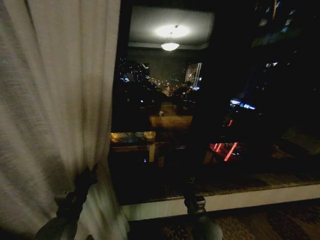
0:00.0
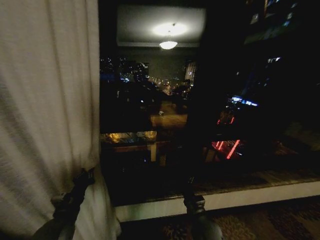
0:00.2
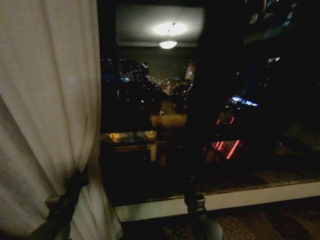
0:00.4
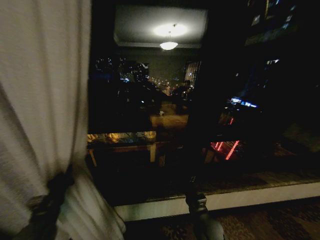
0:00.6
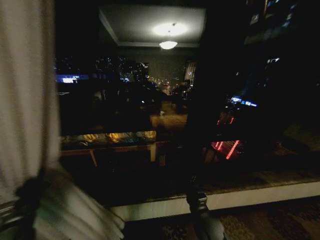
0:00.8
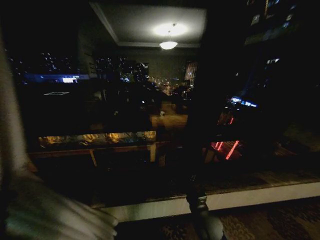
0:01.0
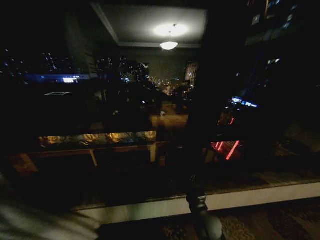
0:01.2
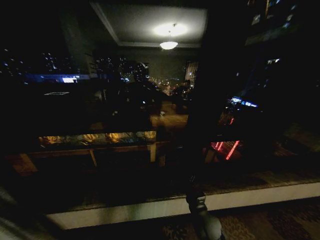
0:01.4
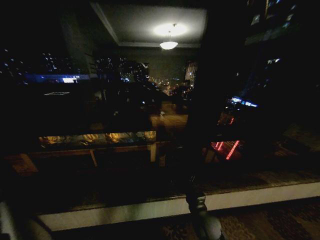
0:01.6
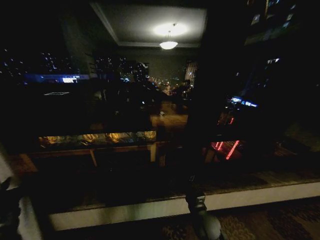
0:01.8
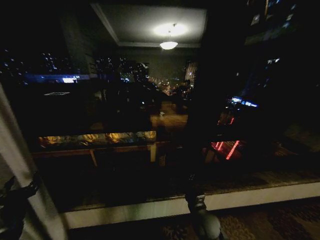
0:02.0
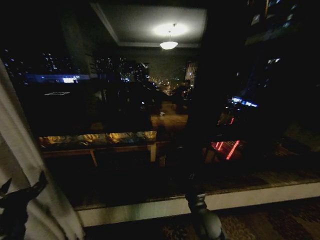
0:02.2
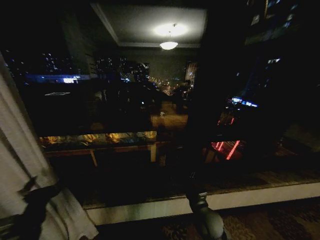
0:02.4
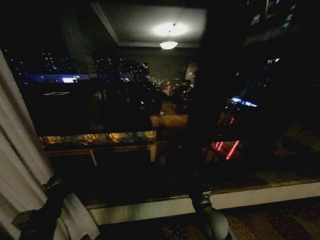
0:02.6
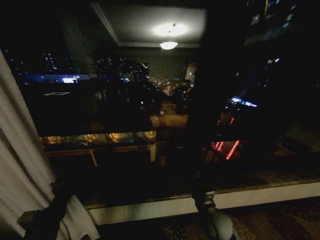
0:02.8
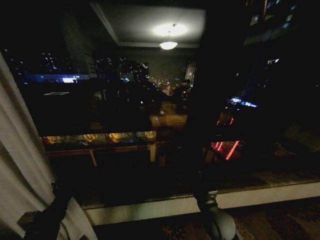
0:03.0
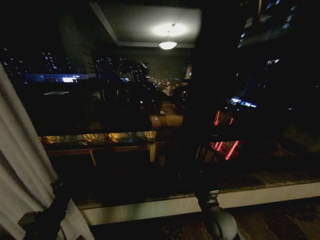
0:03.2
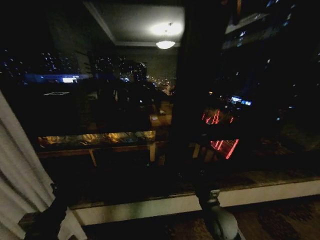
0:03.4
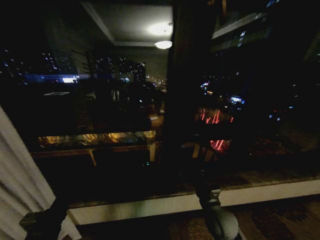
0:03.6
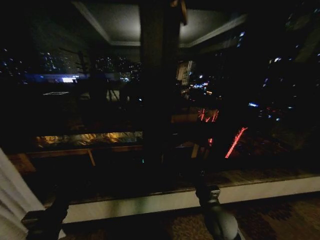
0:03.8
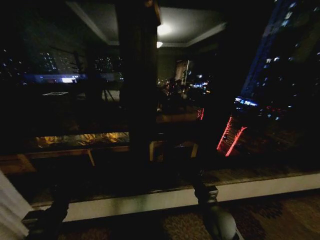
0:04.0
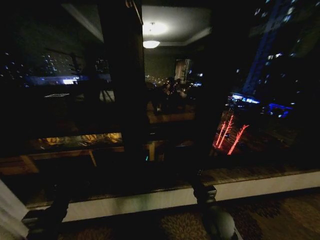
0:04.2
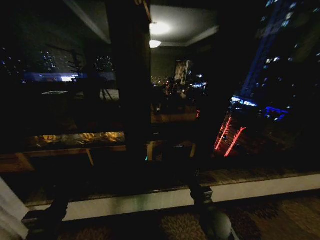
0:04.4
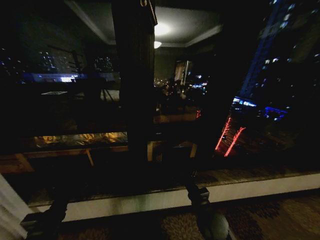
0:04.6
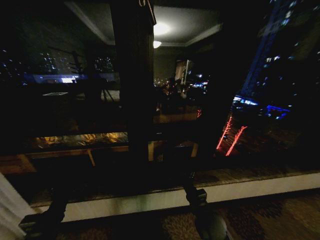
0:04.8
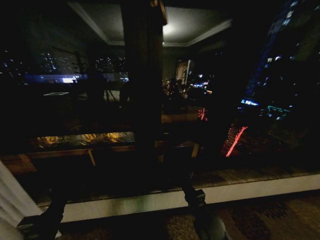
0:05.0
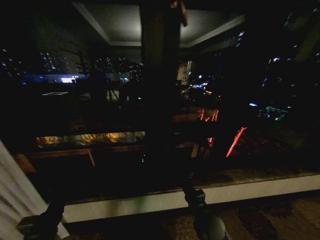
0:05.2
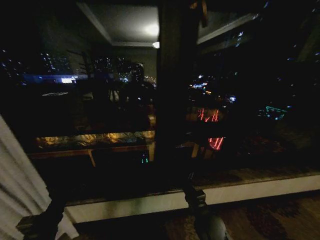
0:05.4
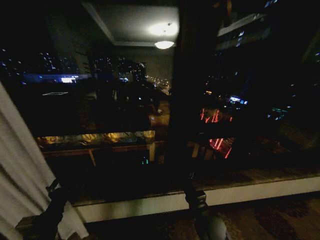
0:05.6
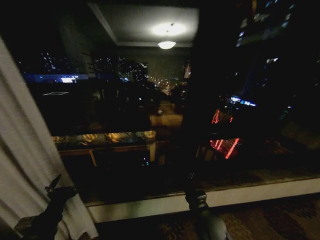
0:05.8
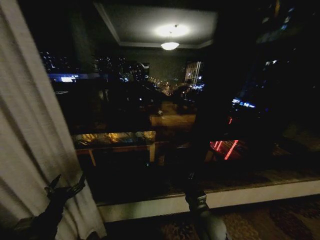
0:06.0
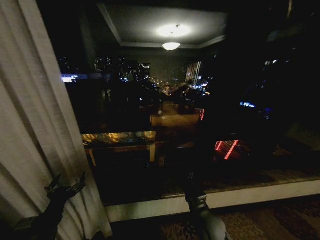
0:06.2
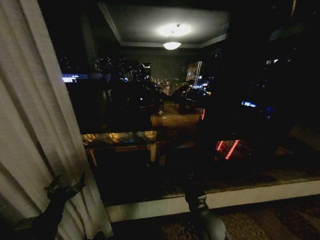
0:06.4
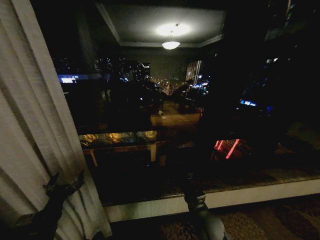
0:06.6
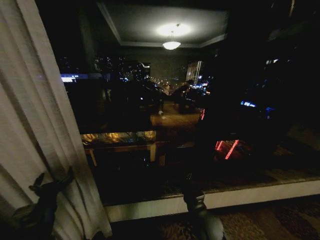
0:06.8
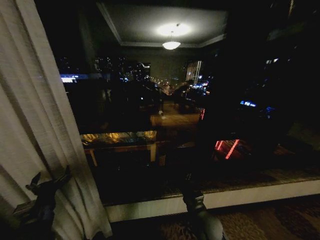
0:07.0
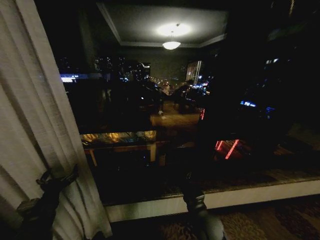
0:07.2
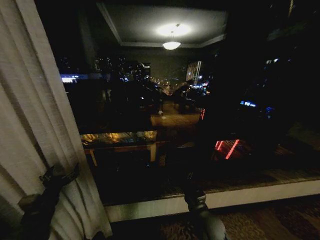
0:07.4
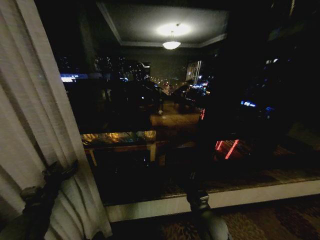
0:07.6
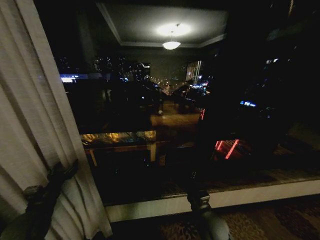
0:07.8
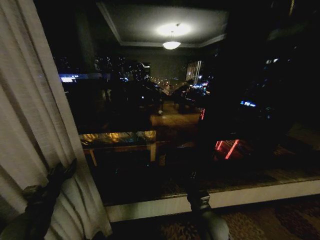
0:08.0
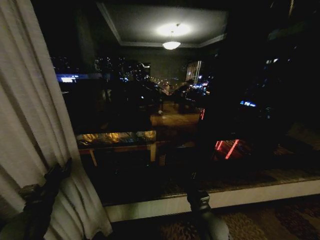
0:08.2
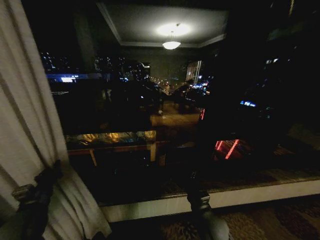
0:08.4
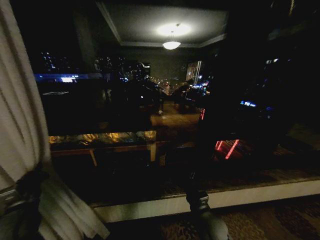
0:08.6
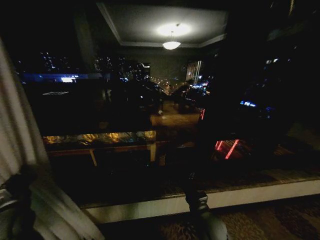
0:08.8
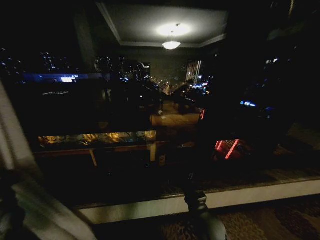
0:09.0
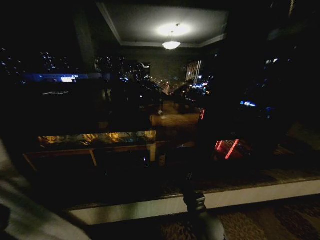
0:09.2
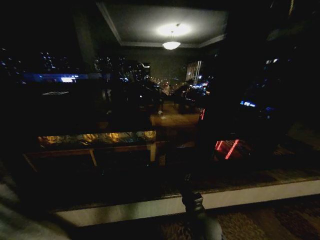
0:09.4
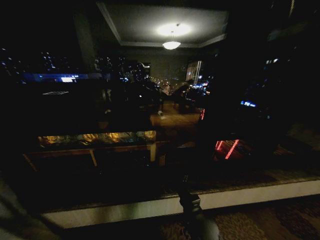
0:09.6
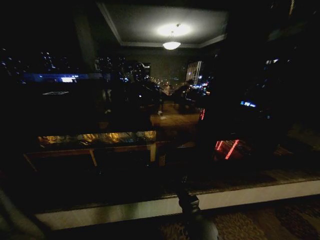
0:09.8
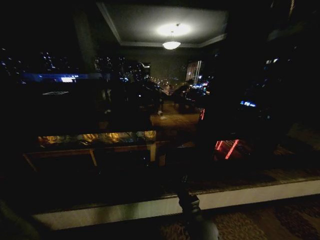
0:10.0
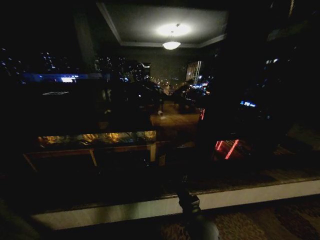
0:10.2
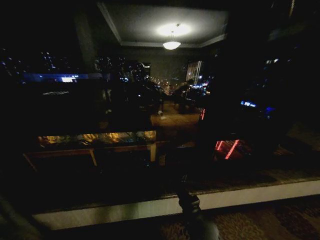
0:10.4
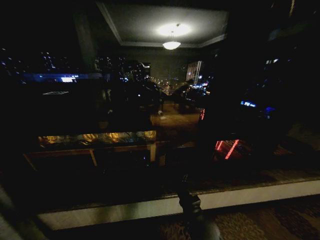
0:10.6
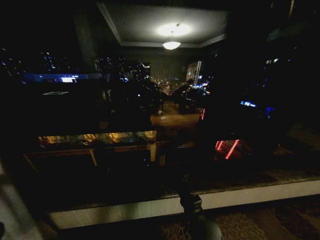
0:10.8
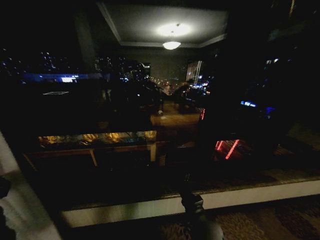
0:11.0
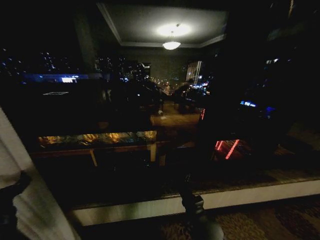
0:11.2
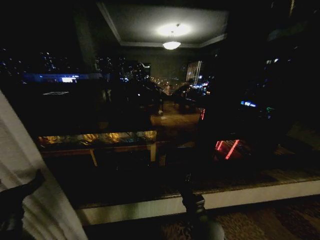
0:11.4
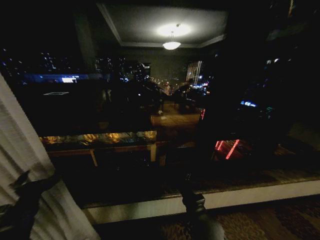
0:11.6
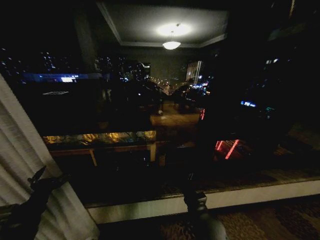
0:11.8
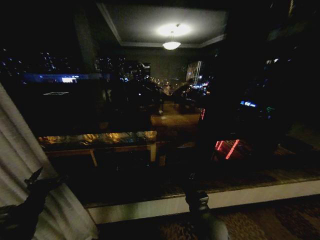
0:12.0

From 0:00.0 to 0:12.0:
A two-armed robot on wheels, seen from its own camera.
Task of the whole recording: Open the curtains by pulling them apart, changing their state from closed to fully open.
From 0:00.0 to 0:01.6: The left gripper is displaced to the left by about 20 cm.
From 0:01.6 to 0:03.0: The right gripper heads upward, covering approximately 5 cm. Meanwhile the left gripper heads to the right, covering roughly 15 cm, and opens up.
From 0:06.0 to 0:07.6: The left gripper moves forward and to the left, some 10 cm.
From 0:07.6 to 0:09.0: The left gripper heads to the left, covering about 5 cm, and closes its fingers.
From 0:09.0 to 0:10.4: The left gripper shifts roughly 10 cm to the left.
From 0:10.4 to 0:12.0: The left gripper travels to the right by approximately 20 cm, and opens up.

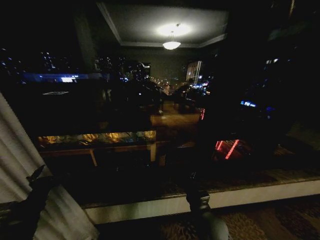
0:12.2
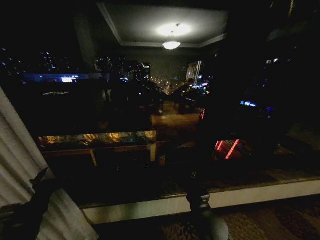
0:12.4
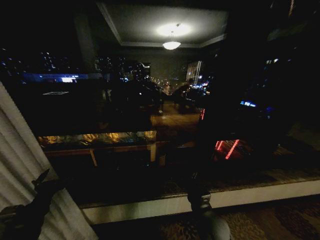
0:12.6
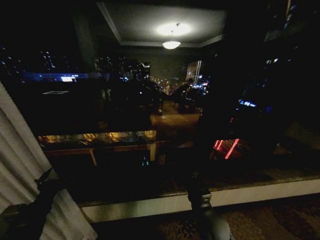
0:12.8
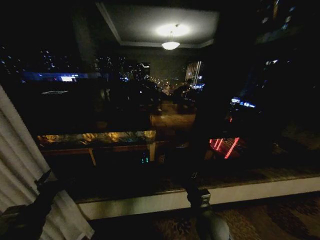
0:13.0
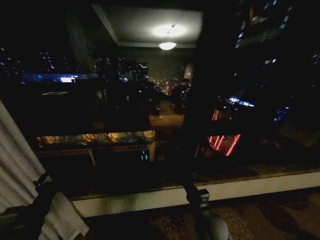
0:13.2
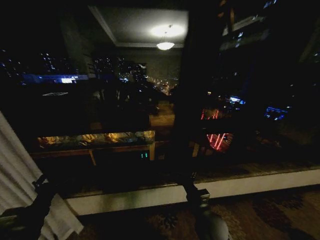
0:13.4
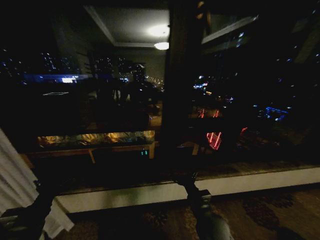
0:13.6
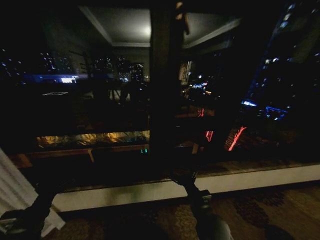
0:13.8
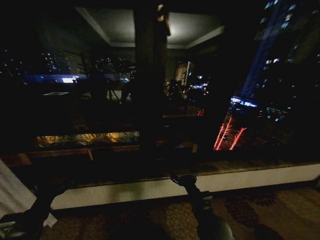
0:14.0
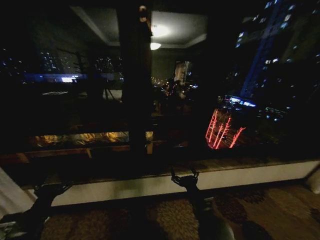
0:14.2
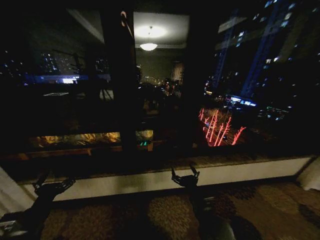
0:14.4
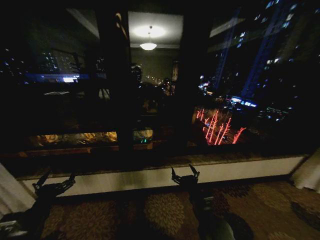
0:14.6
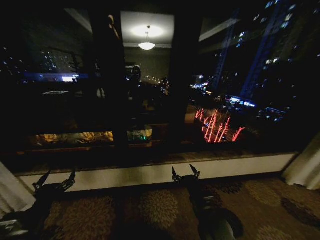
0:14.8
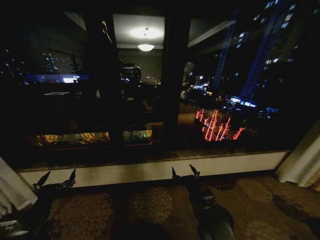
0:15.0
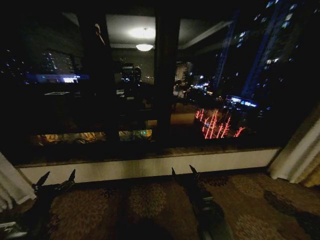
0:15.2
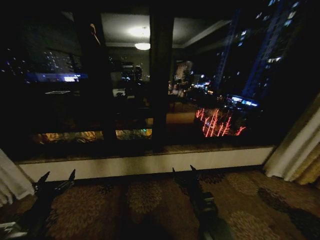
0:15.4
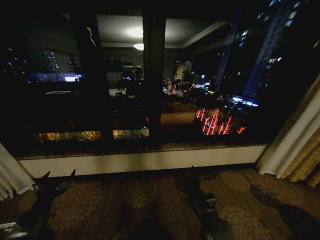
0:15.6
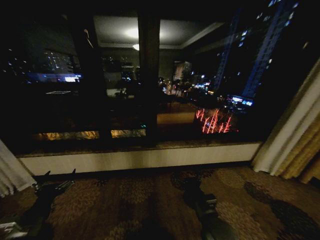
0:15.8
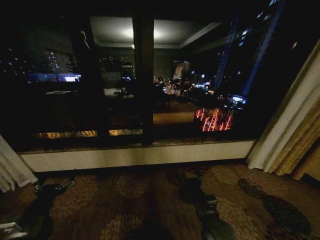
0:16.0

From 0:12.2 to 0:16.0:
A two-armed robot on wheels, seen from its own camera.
Task of the whole recording: Open the curtains by pulling them apart, changing their state from closed to fully open.
From 0:12.2 to 0:13.4: There are only small adjustments of the grippers.
